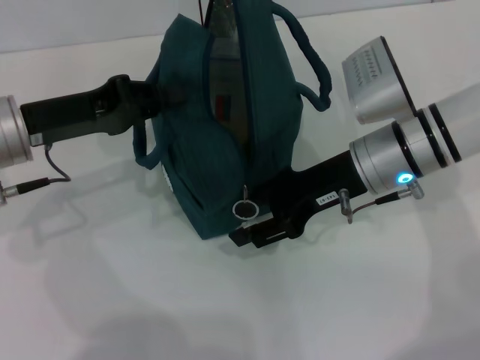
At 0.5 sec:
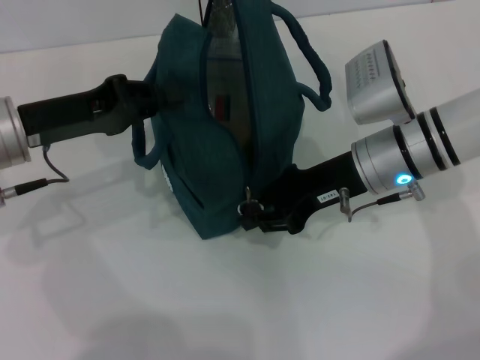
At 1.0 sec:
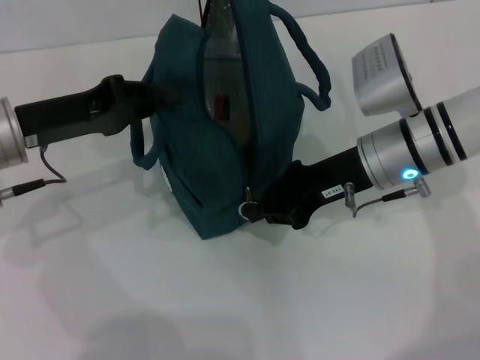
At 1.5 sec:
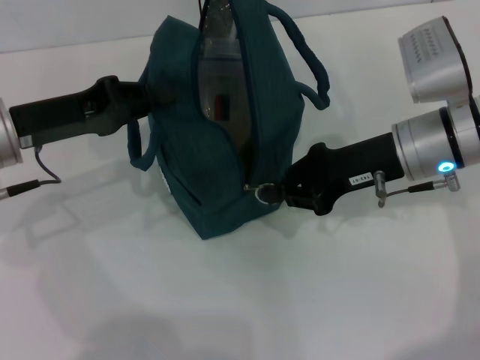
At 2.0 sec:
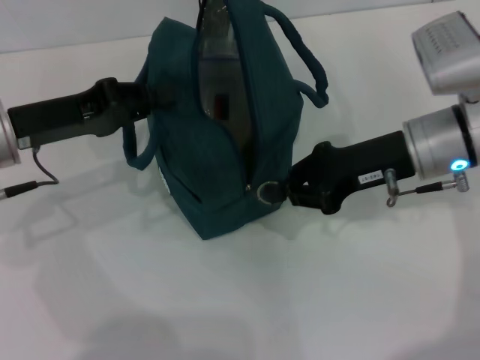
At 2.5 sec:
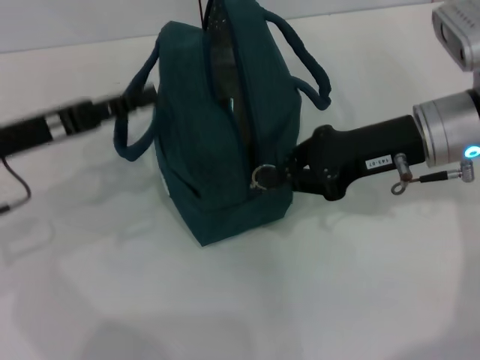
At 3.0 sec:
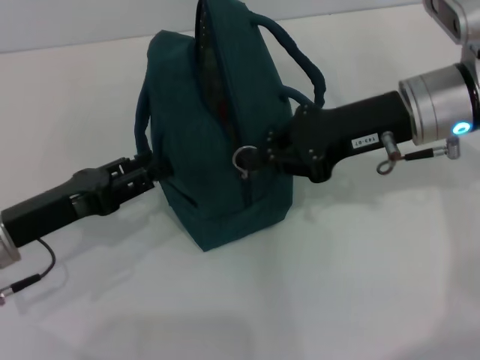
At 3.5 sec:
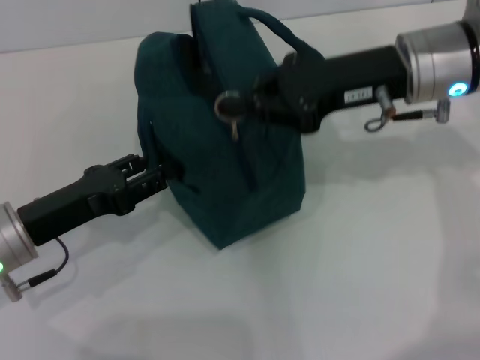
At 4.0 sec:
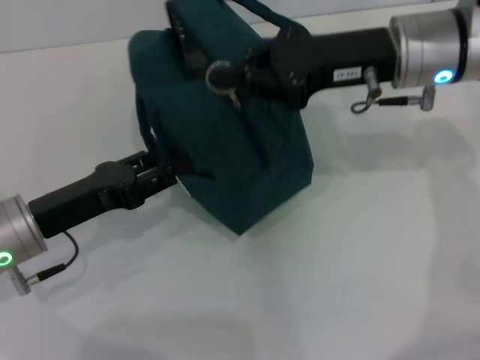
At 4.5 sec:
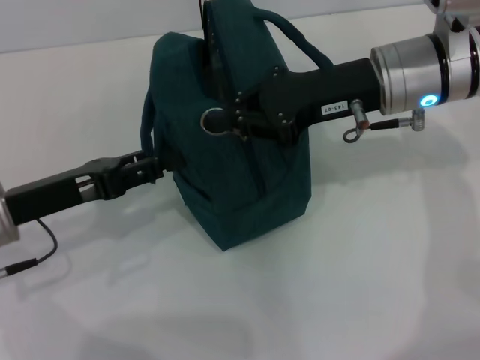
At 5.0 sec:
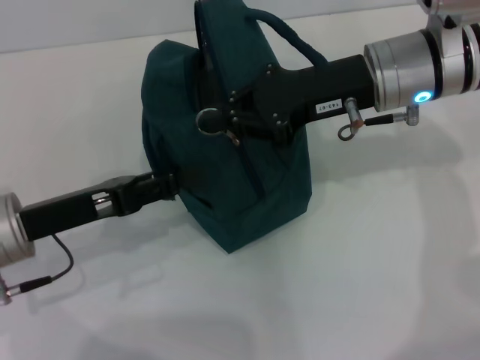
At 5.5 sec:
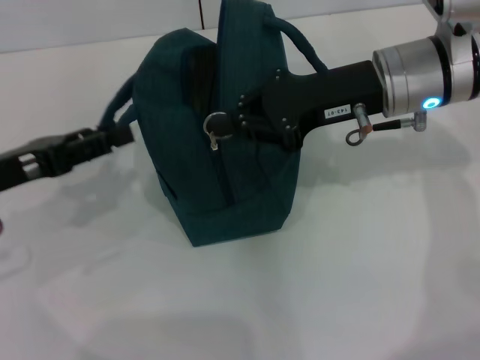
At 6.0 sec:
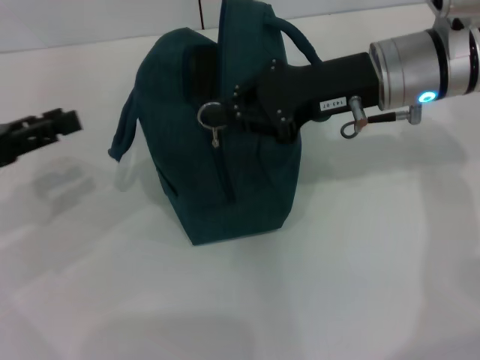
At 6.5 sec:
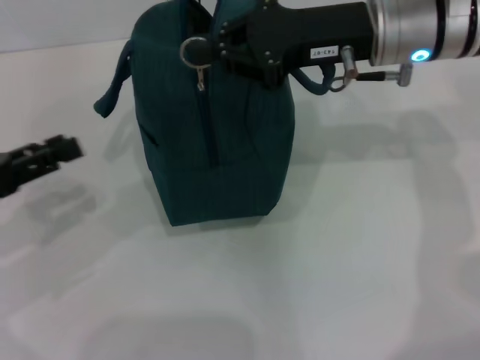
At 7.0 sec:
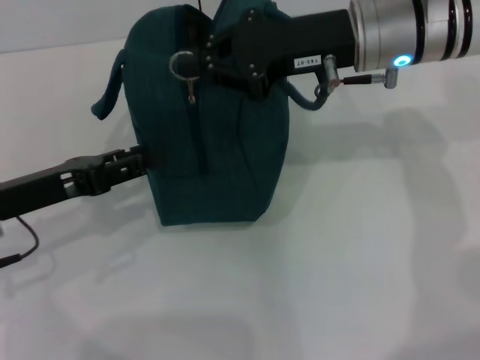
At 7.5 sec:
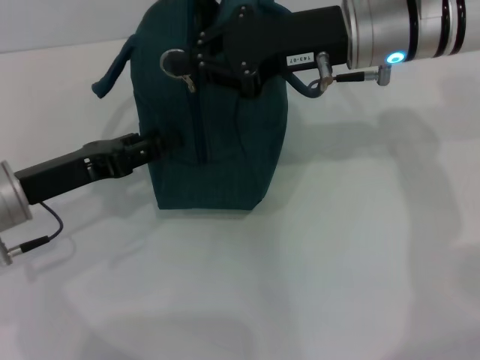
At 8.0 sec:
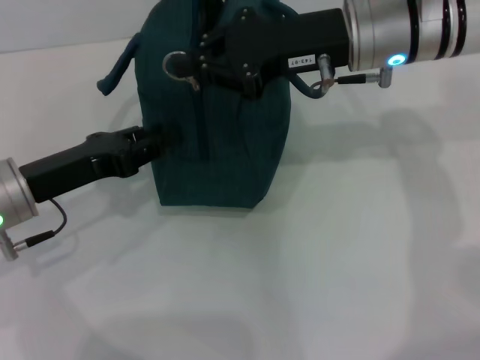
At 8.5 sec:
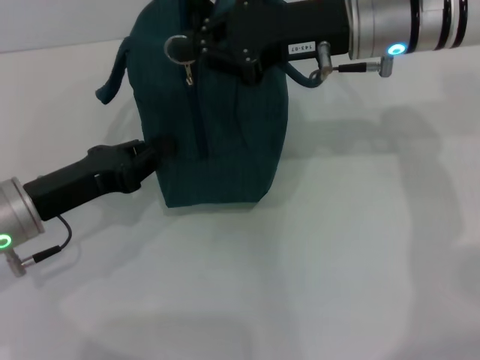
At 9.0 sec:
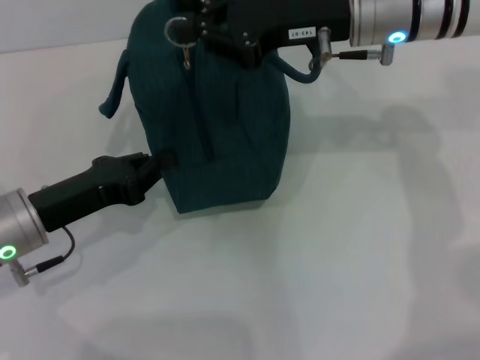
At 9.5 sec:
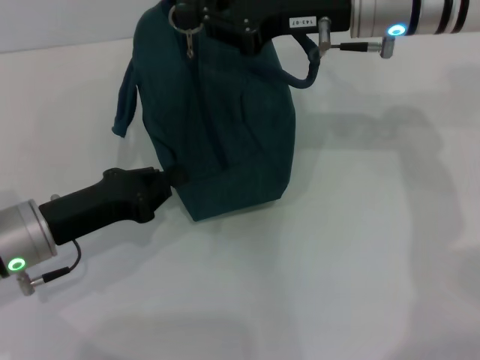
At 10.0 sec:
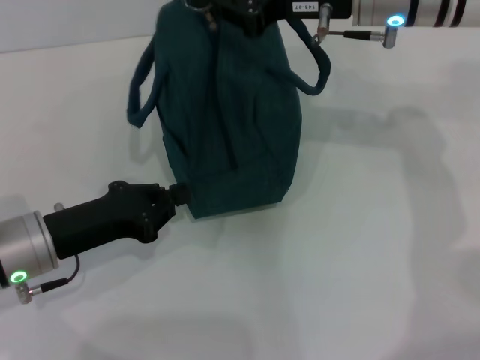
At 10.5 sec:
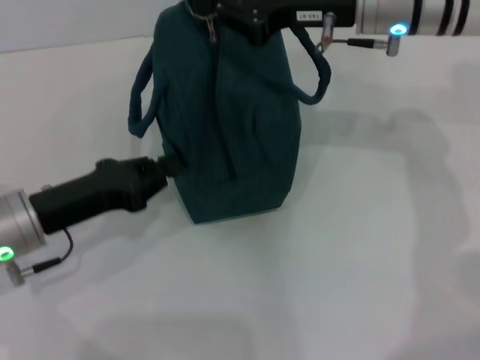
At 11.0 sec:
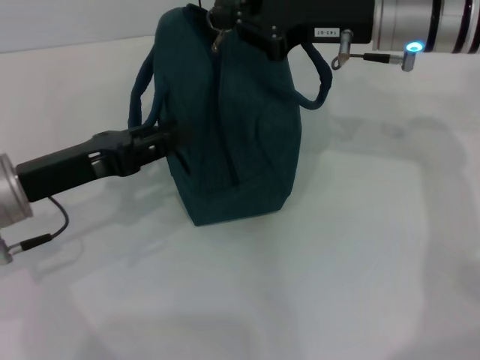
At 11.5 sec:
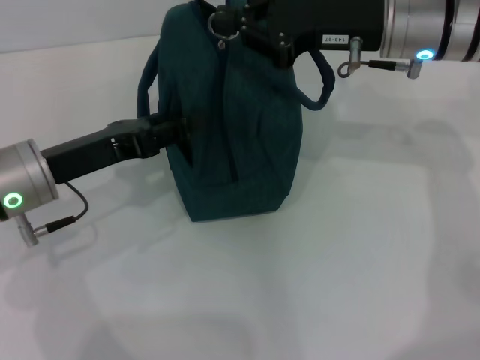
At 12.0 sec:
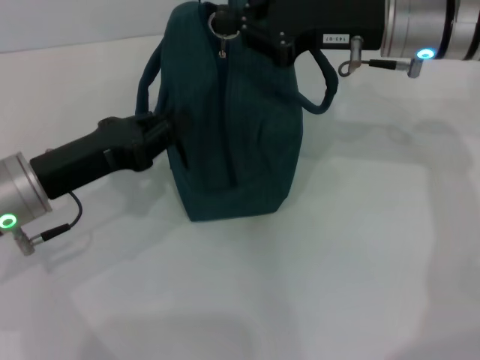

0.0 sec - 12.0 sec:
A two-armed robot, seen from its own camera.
Step, 0.0 sec - 2.0 sec: Hold the lunch bag with your left hand.
0.0 sec - 2.0 sec: The right gripper shifts by some 5 cm, and closes up.
2.0 sec - 4.0 sec: The right gripper is displaced upward by approximately 5 cm, while the left gripper travels downward and backward by some 10 cm, and opens up.
4.0 sec - 6.0 sec: The left gripper is displaced to the left and upward by some 10 cm.
6.0 sec - 8.0 sec: The left gripper is displaced to the right and downward by roughly 10 cm.
8.0 sec - 10.0 sec: The left gripper closes up.
10.0 sec - 12.0 sec: The left gripper opens up.

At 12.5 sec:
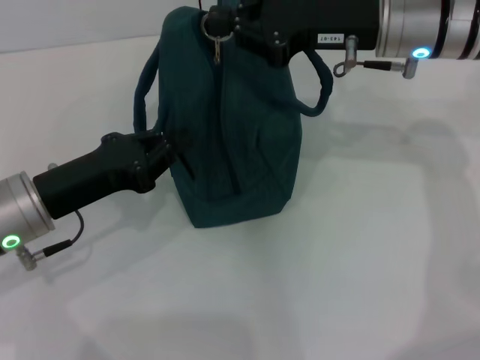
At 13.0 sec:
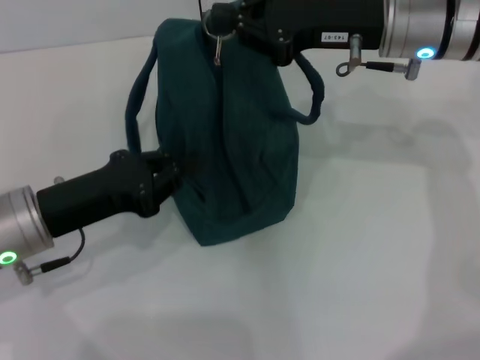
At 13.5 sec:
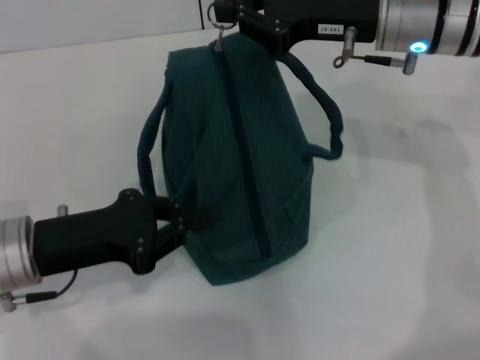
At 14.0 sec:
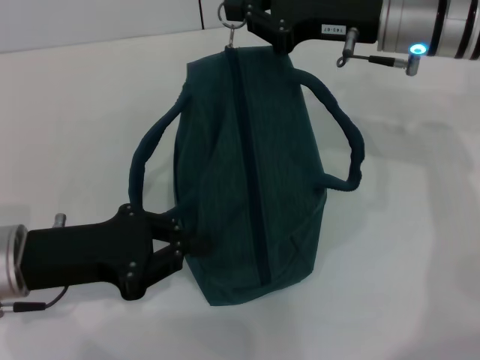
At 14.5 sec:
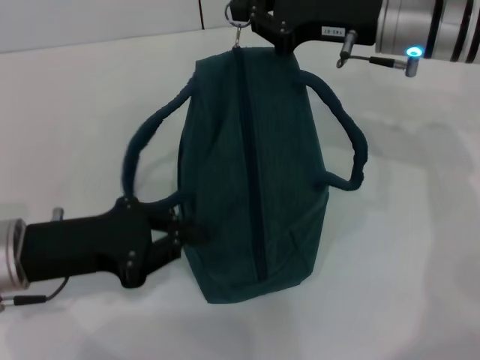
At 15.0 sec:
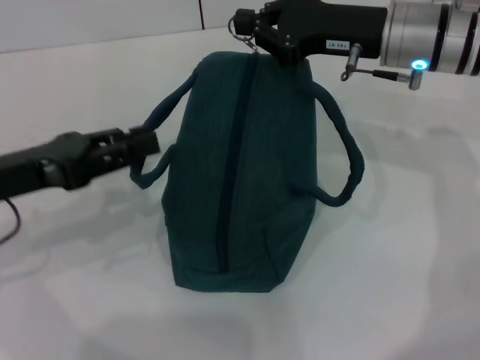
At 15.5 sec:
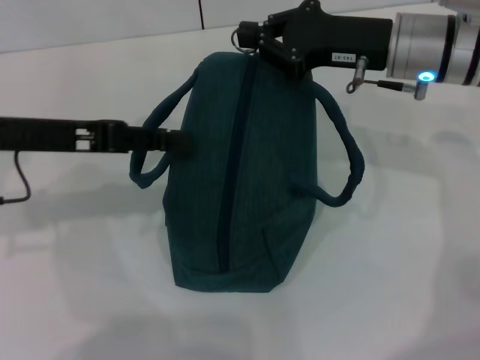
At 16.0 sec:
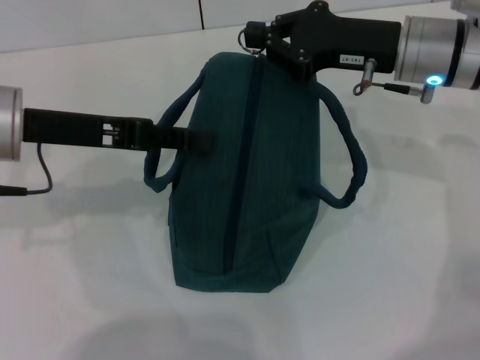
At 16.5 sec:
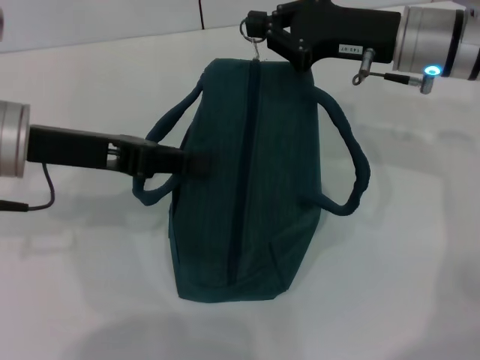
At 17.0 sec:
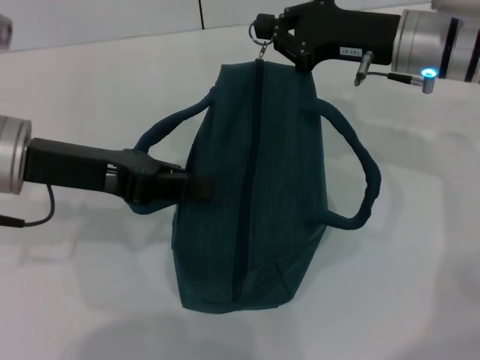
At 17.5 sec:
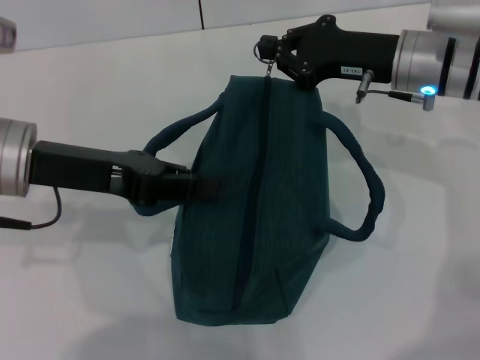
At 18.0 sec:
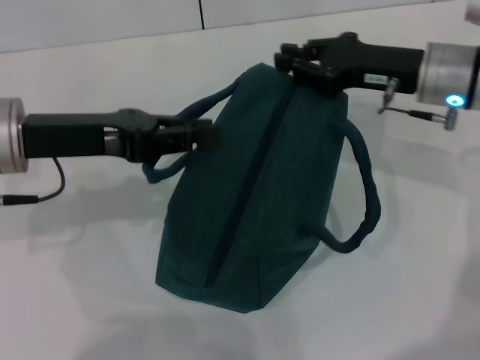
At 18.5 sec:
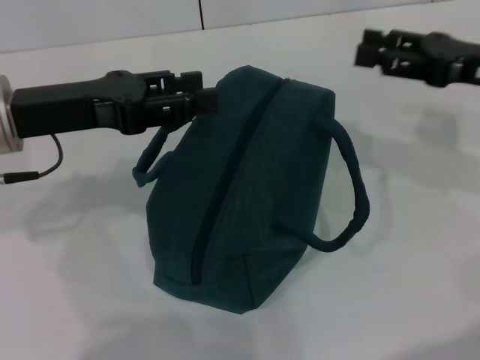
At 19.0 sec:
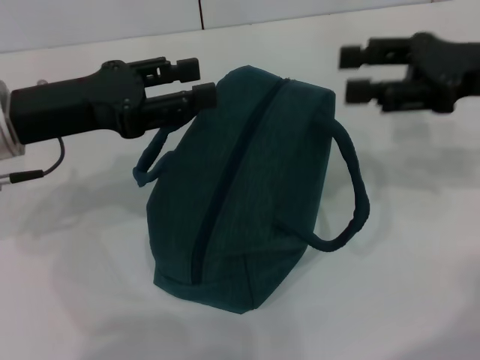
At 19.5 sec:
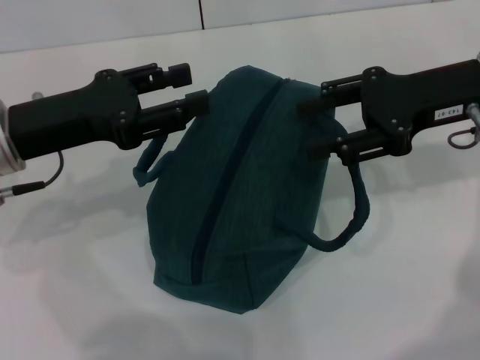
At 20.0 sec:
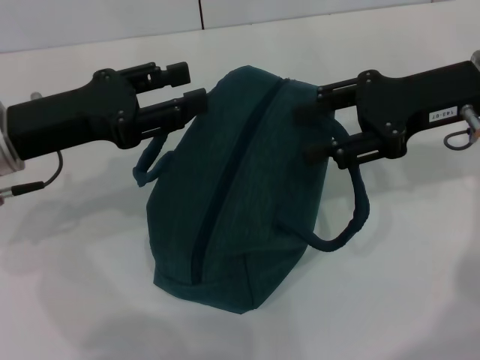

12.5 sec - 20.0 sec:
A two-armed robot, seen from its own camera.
Step, 12.5 sec - 18.0 sec: Hold the lunch bag with your left hand.
14.5 sec - 16.5 sec: The left gripper is displaced upward and forward by approximately 10 cm.
18.0 sec - 20.0 sec: The left gripper opens up. The right gripper reaches some 10 cm to the right, then returns, and opens up.
